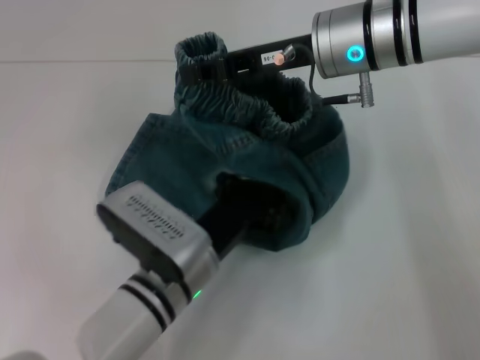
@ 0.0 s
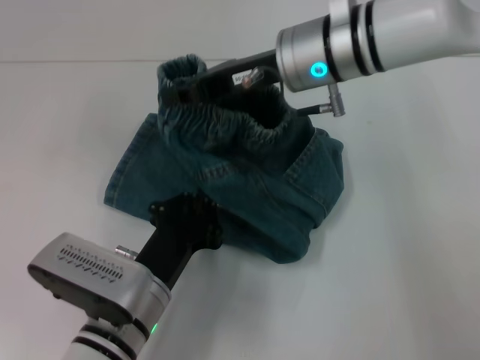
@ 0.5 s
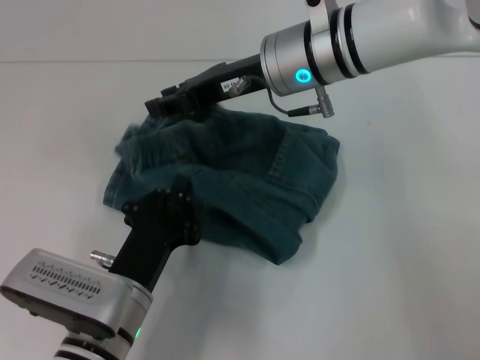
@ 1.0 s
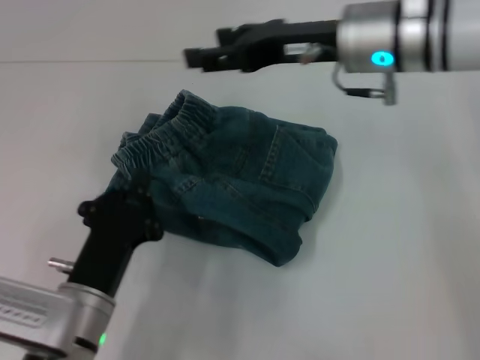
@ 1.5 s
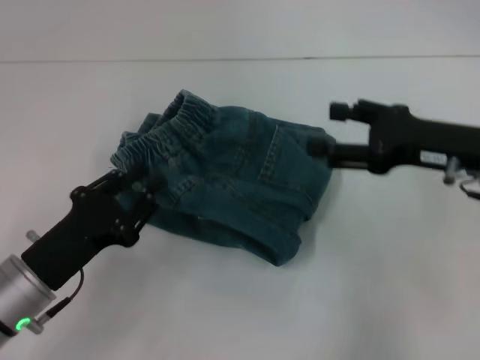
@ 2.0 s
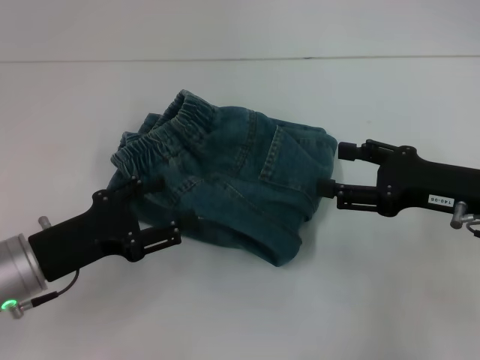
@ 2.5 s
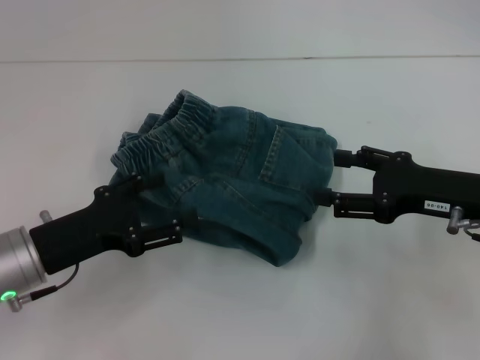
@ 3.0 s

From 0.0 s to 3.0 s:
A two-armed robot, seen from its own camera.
Step, from 0.0 s to 1.0 s: Fold to the left with your right hand.
From 0.0 s to 1.5 s: The right gripper opens up. The left gripper heads to the left and backward, covering some 10 cm.
From 1.5 s to 3.0 s: The right gripper is displaced to the right, backward and downward by roughly 20 cm. The left gripper is displaced to the left and forward by about 10 cm, and opens its fingers.

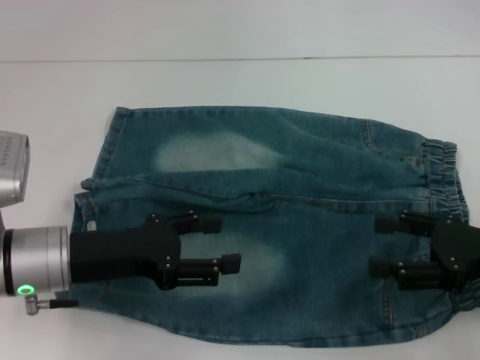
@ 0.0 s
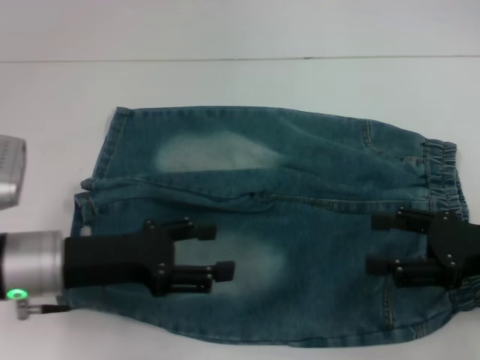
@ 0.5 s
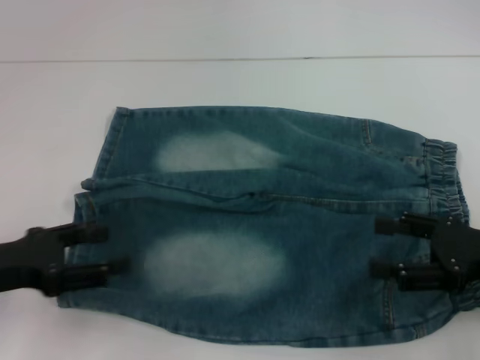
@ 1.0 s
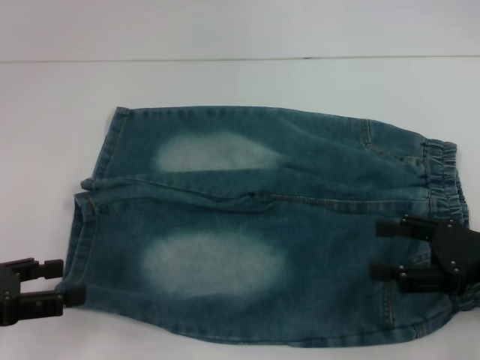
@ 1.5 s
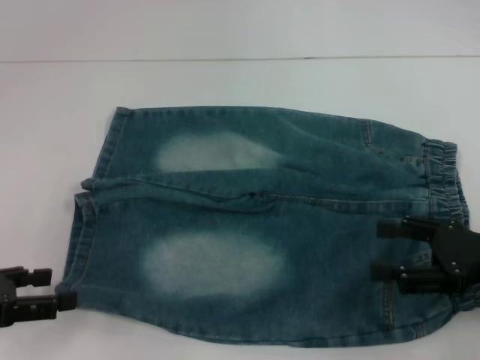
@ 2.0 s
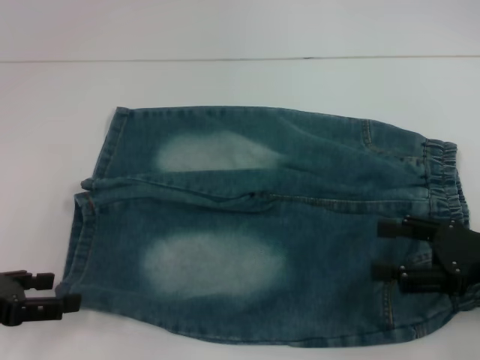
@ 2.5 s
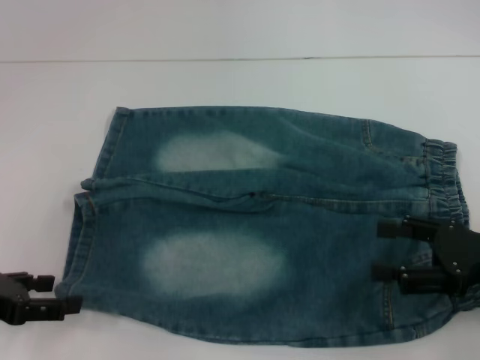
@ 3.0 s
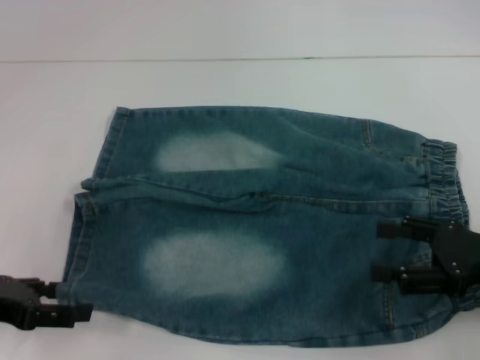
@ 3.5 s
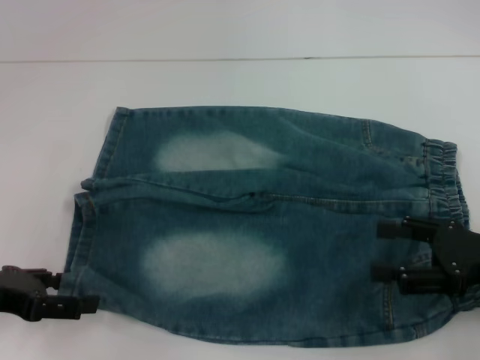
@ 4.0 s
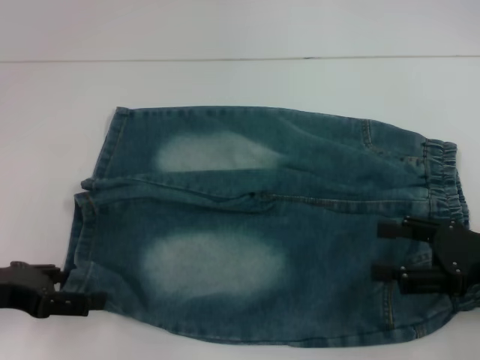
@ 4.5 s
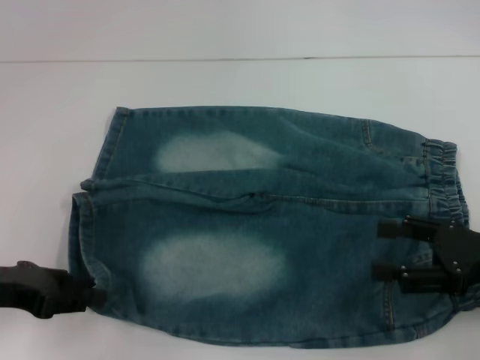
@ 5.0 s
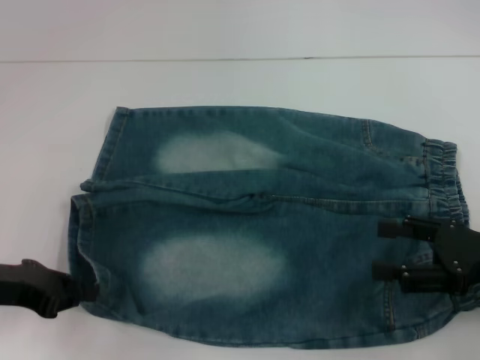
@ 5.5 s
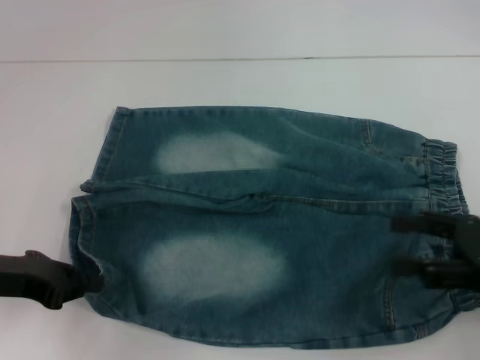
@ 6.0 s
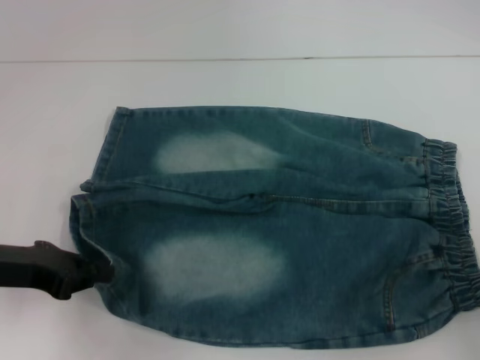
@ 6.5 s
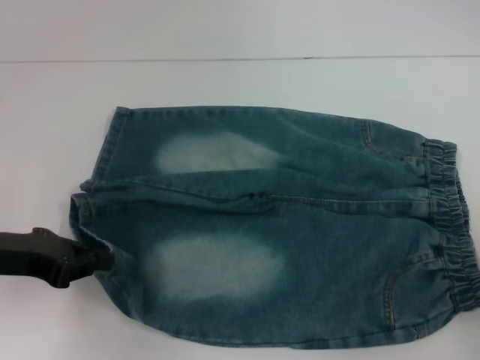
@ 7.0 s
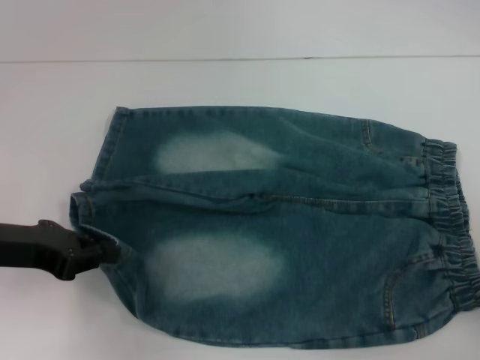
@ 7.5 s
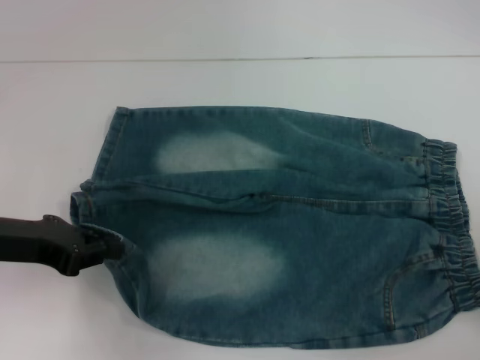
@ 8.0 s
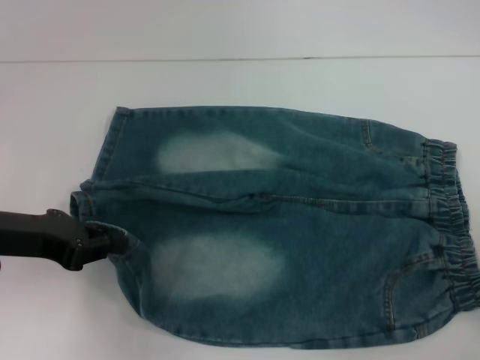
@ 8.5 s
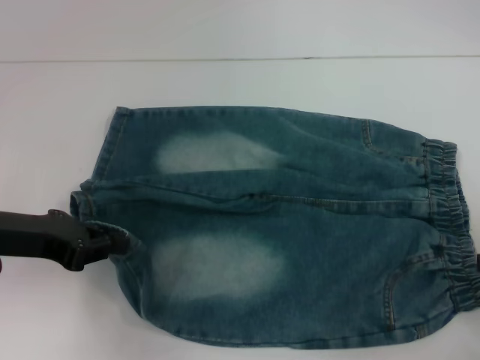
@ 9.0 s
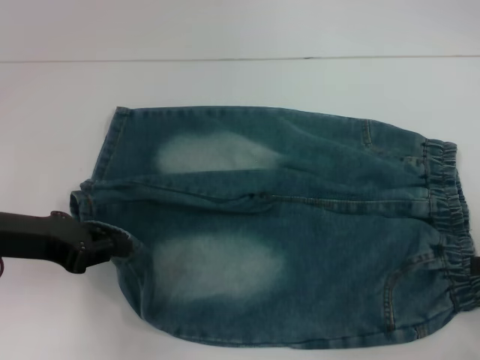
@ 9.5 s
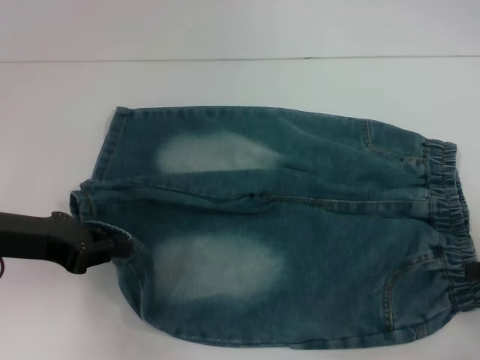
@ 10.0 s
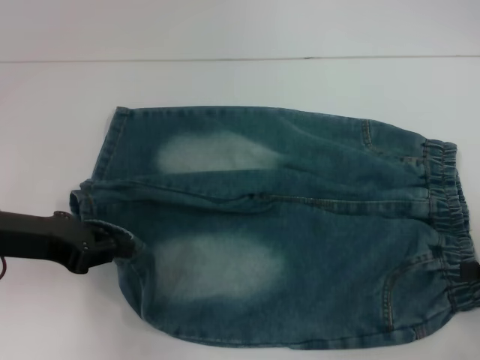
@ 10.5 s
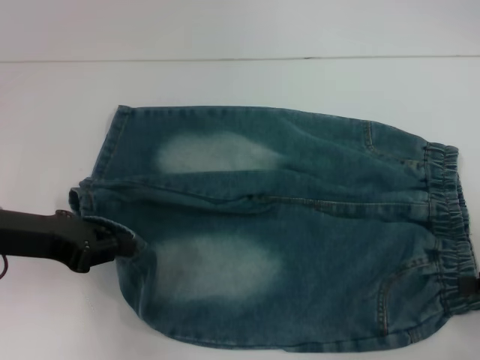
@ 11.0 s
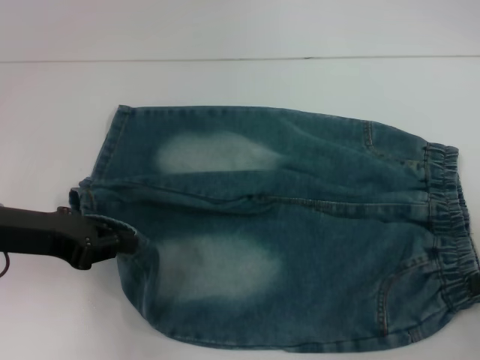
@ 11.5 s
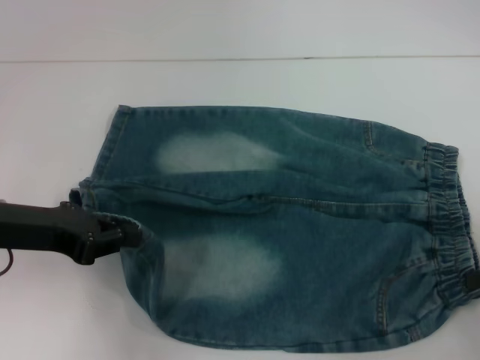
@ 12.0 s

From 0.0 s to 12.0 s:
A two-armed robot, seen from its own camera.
Step, from 0.0 s to 5.5 s: Grab the lower left pant leg with your left hand.
Step, from 6.0 s to 11.5 s: Hold the lower right waistband with your right hand.
From 0.0 s to 2.0 s: The left gripper goes some 15 cm to the left and backward.
From 2.0 s to 4.0 s: The grippers stay close to where they were, moving slightly.
From 4.0 s to 6.0 s: The left gripper closes up.
From 6.0 s to 8.0 s: The right gripper heads to the right, covering about 10 cm.
From 8.0 s to 10.0 s: The grippers move only a little.
From 10.0 s to 12.0 s: The right gripper closes its fingers.

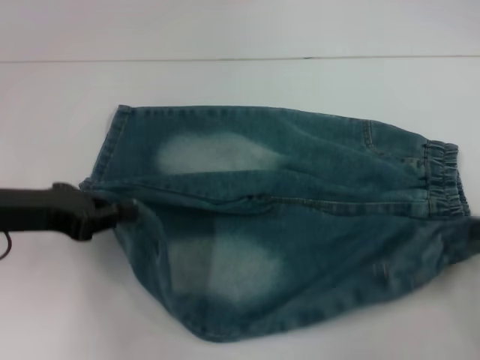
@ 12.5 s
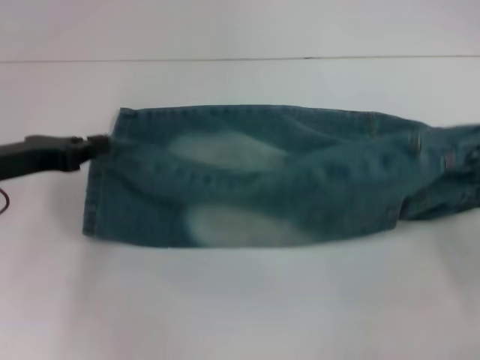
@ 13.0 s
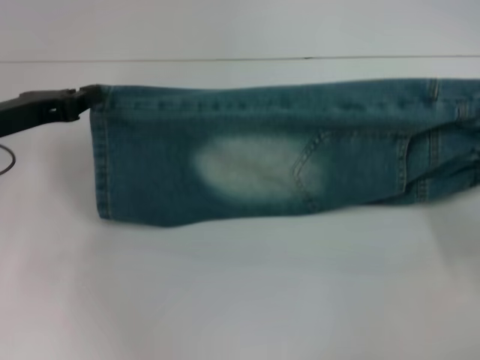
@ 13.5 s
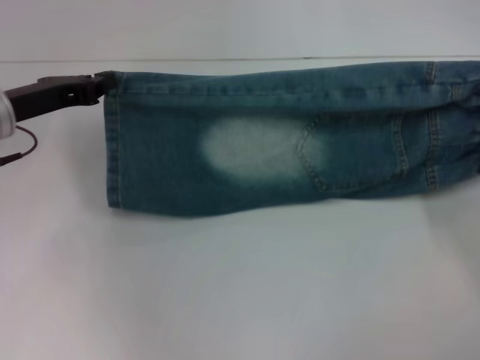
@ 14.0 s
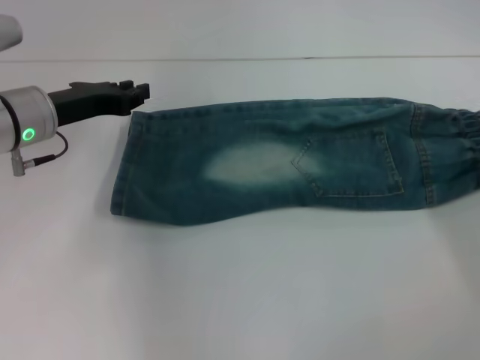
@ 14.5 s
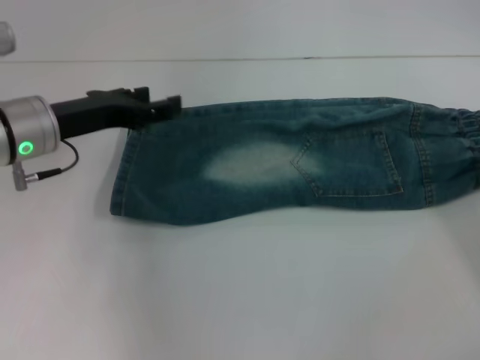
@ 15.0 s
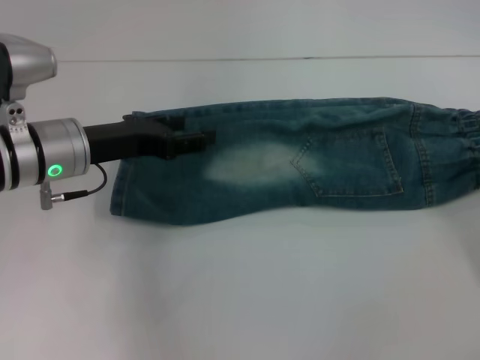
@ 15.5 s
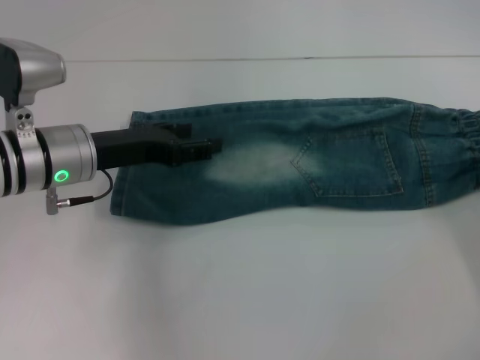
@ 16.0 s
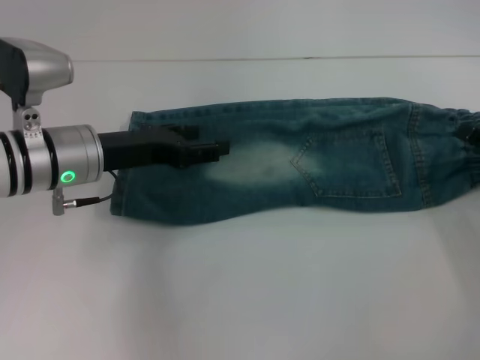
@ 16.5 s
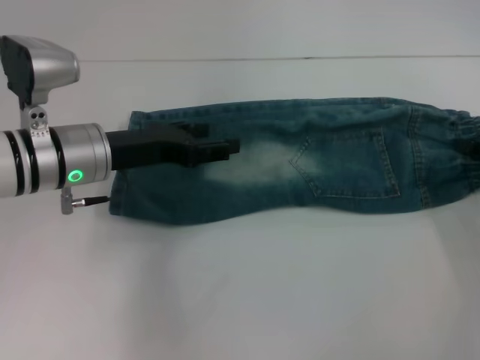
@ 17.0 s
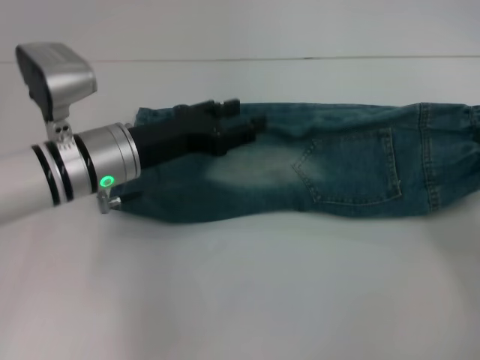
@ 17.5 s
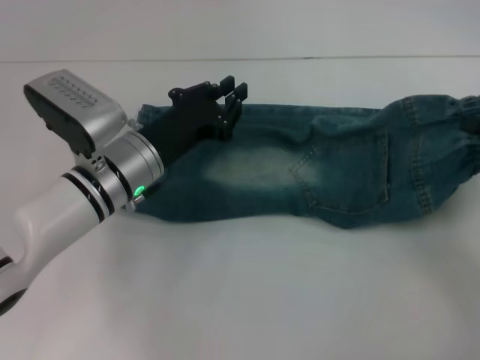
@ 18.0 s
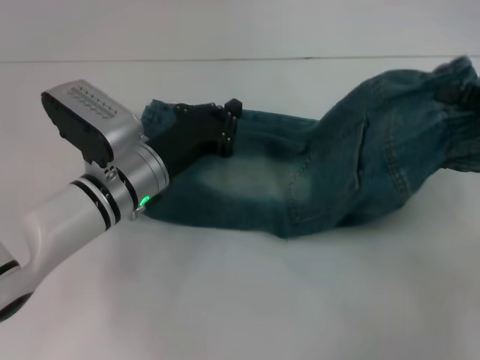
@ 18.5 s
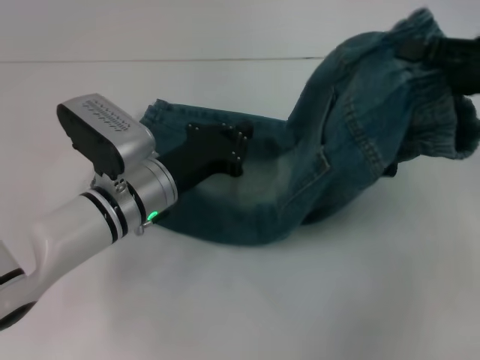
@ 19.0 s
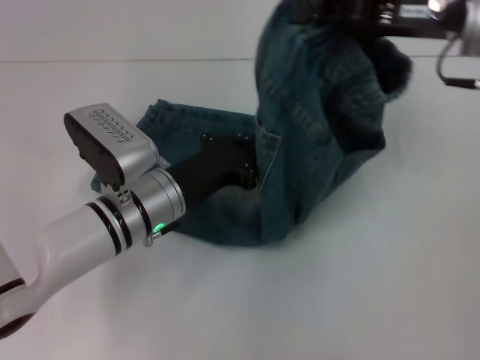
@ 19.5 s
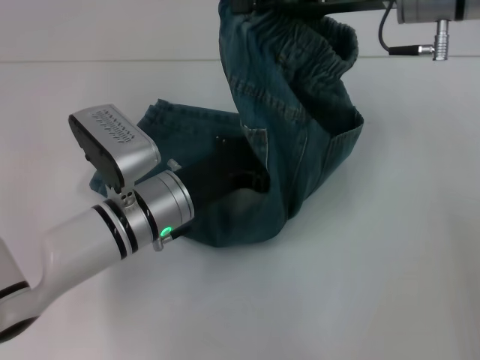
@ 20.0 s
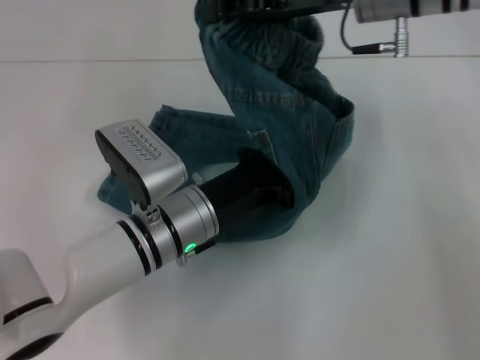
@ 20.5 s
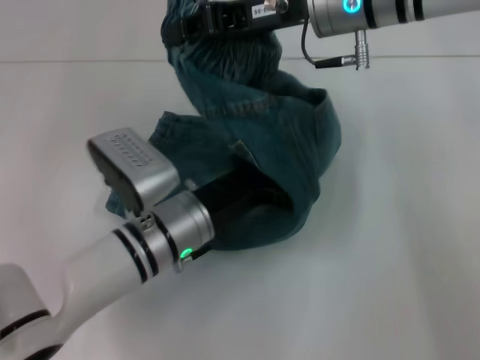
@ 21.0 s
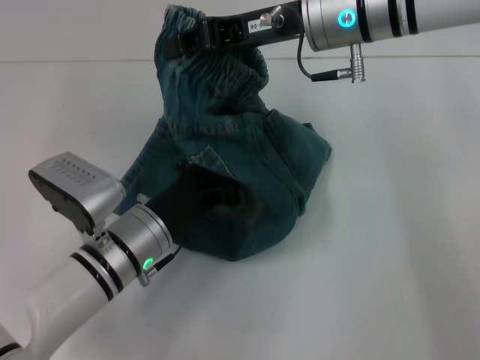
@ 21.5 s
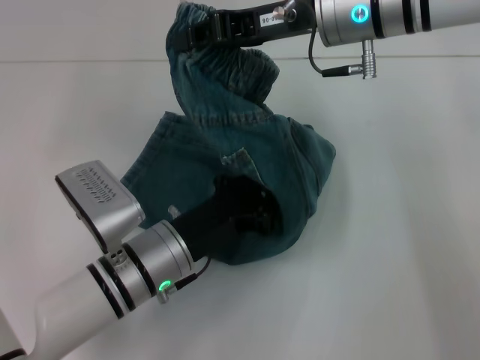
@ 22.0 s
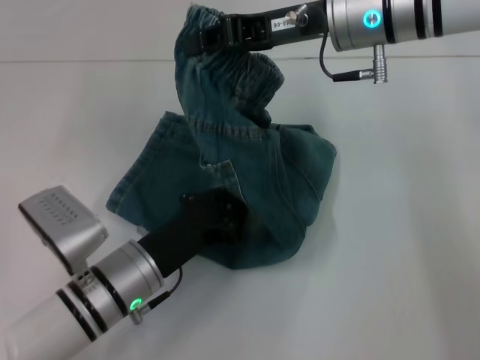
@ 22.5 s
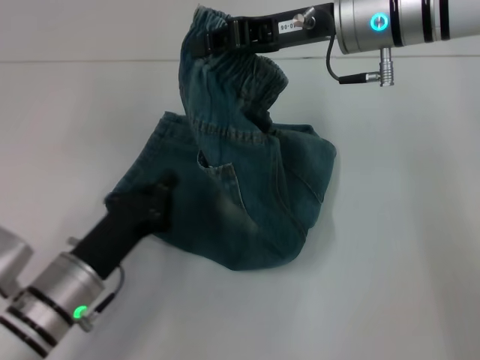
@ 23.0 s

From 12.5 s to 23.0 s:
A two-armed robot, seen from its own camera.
Step, from 12.5 s to 14.0 s: Fold upward with your right hand.
Step, from 14.5 s to 17.0 s: Grab the waistband with your right hand.
Step, from 17.5 s to 20.5 s: Press the middle of the pants with your left hand.
From 12.5 s to 14.5 s: The two grippers go roughly 10 cm forward.
From 14.5 s to 16.5 s: The right gripper opens up. The left gripper shifts by about 5 cm, and opens its fingers.
From 16.5 s to 19.0 s: The right gripper shifts some 15 cm upward and to the left, and closes up; the left gripper moves to the right and downward, about 10 cm, and closes.
From 19.0 s to 21.0 s: The right gripper moves to the left and forward, some 25 cm. Meanwhile the left gripper shifts by about 5 cm.
From 21.0 s to 23.0 s: The left gripper moves to the left and backward, some 10 cm.
